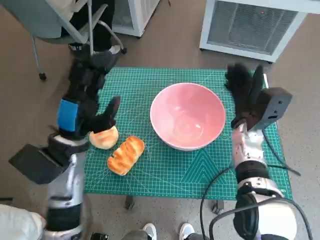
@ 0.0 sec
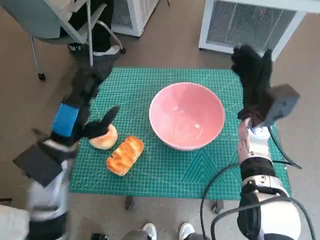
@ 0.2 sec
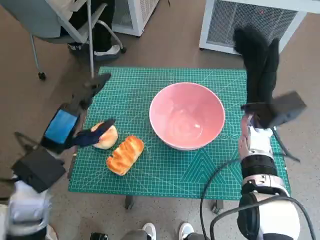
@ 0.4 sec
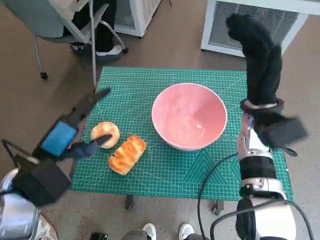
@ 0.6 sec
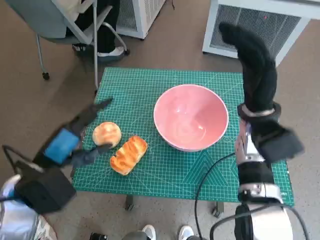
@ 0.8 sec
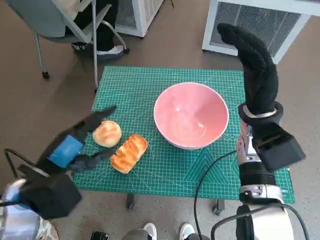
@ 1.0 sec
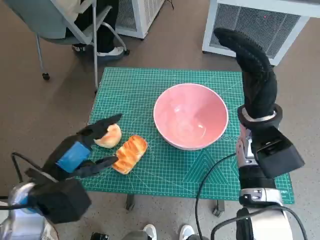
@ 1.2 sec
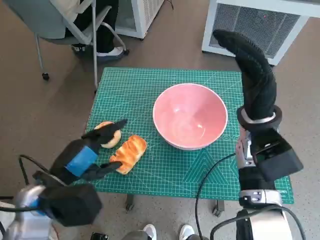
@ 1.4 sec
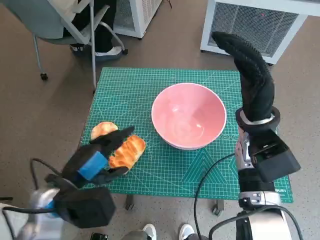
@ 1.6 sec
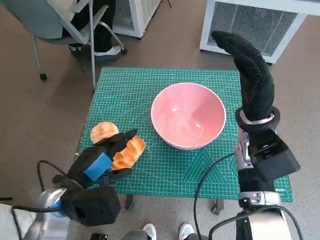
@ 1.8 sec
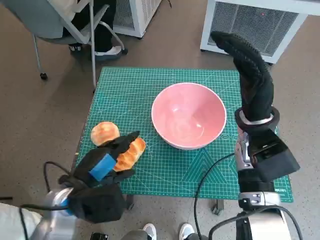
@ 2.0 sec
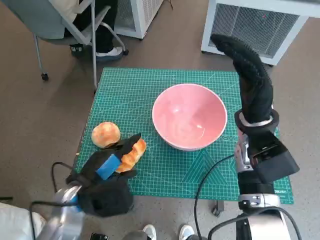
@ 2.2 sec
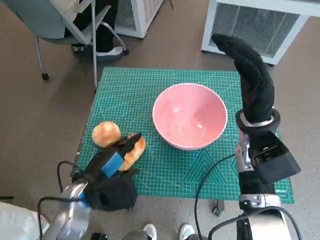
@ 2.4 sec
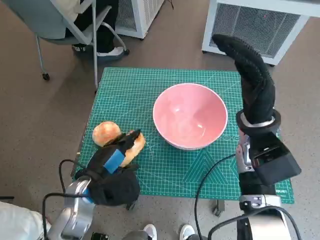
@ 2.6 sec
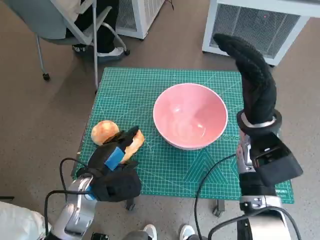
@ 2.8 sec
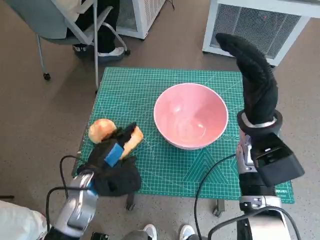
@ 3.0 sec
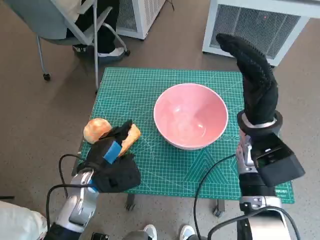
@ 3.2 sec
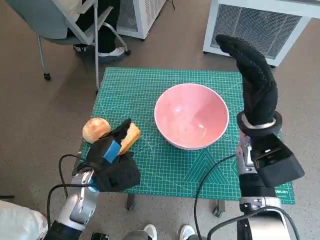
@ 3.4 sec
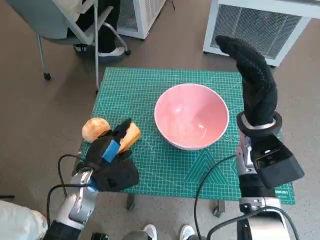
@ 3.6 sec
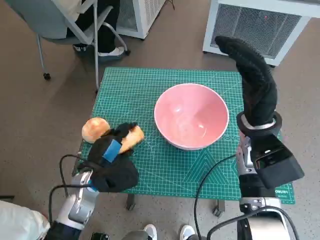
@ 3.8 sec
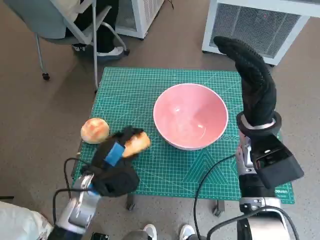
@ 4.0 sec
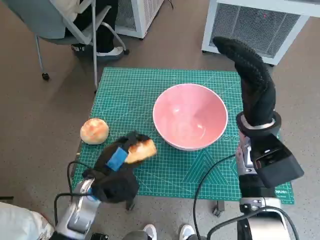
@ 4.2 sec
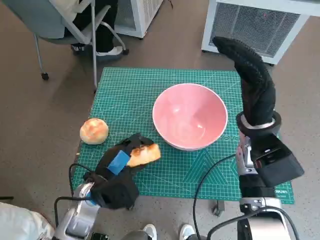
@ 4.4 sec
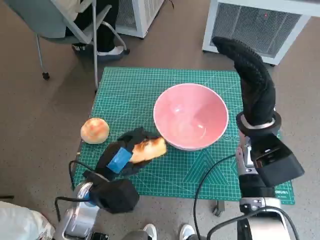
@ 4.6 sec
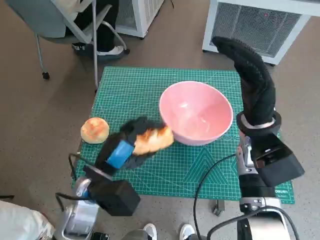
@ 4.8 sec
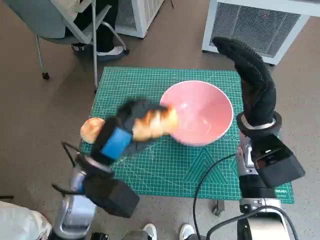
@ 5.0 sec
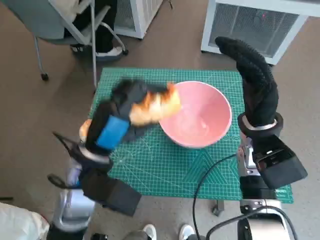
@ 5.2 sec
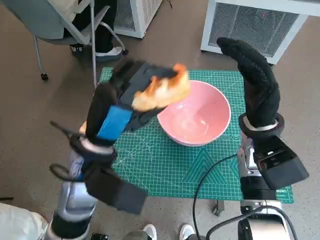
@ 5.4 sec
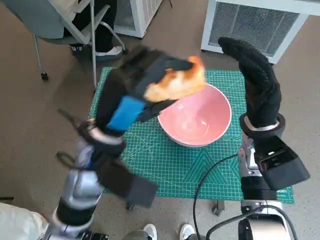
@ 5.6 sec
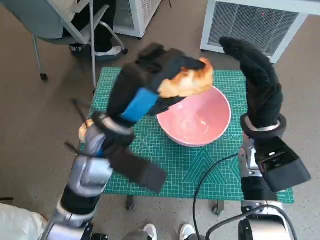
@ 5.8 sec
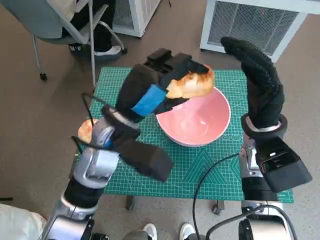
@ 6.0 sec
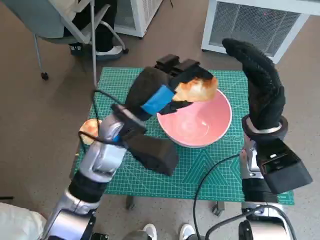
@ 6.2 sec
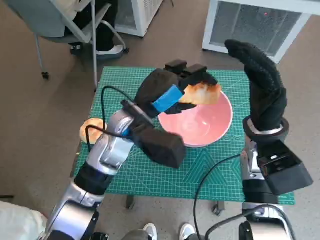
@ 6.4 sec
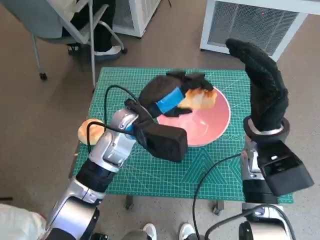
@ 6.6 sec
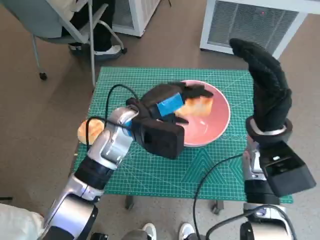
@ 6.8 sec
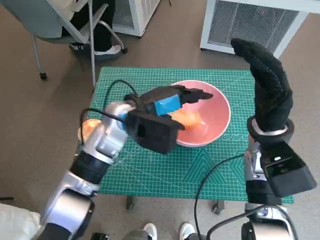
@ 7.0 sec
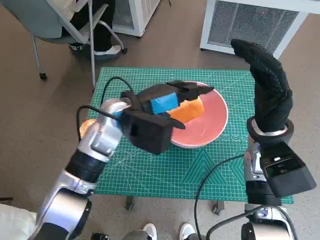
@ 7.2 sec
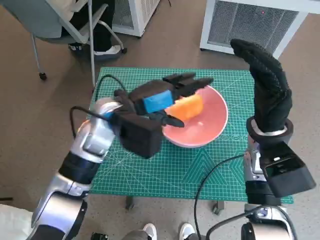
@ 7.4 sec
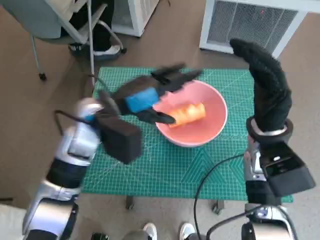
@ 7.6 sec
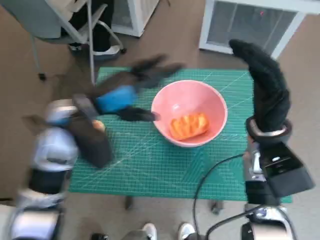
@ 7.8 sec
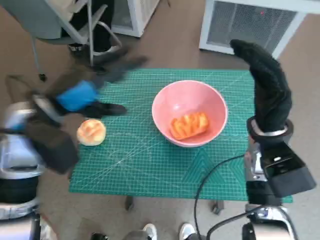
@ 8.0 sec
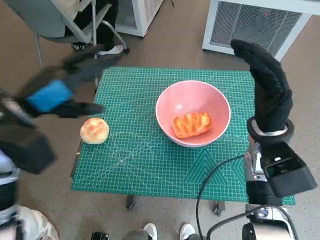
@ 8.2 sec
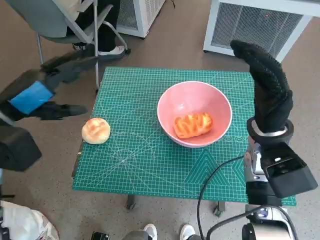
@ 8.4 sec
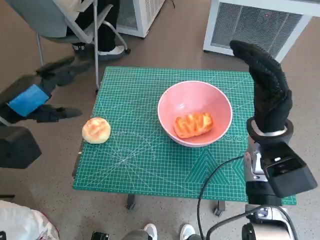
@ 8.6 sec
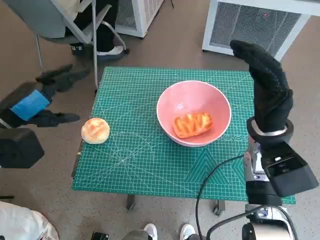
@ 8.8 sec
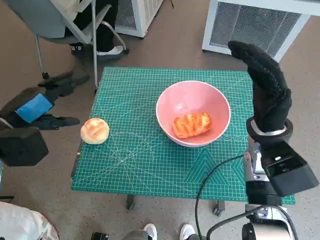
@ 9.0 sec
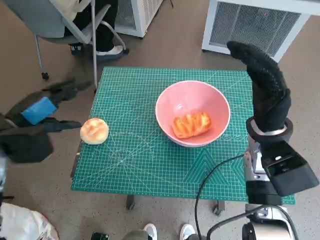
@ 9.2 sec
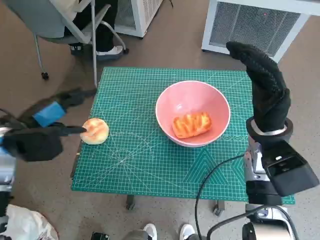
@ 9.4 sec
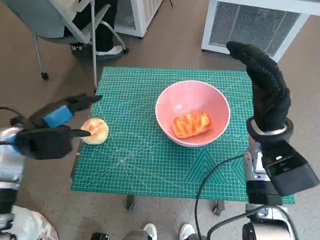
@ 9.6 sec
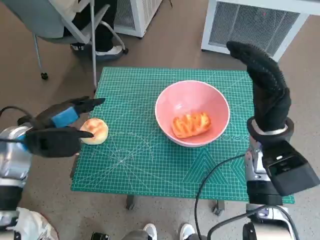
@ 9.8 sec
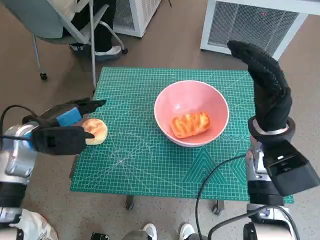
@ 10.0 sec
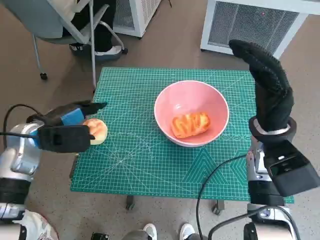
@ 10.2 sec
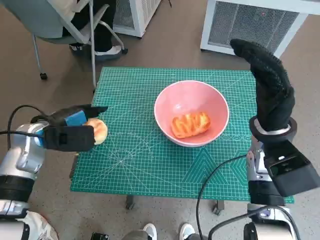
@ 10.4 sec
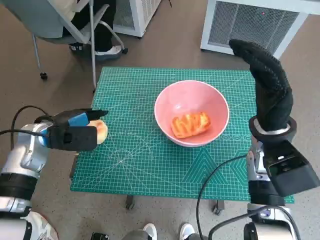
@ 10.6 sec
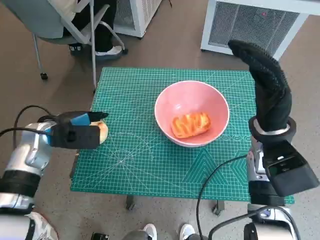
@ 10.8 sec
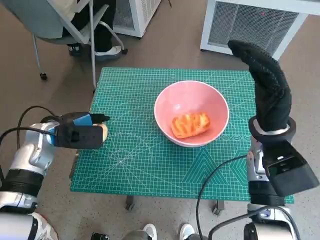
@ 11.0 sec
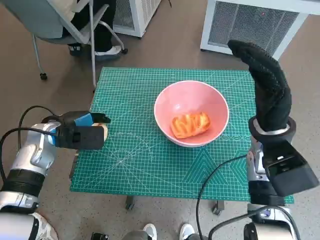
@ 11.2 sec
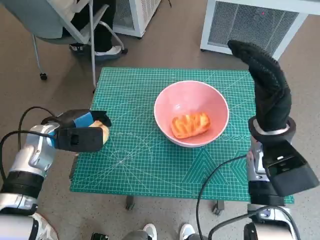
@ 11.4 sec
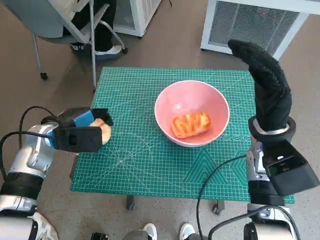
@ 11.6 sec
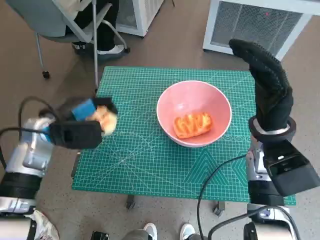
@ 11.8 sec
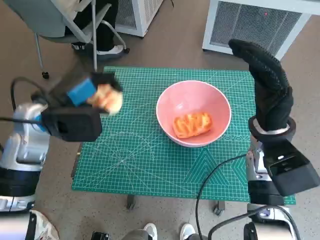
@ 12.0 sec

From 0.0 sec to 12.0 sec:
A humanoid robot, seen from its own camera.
Task of the whole recording: Push the bowl to the center of the table and put the bread into the bowl.
Step, from 0.2 sec to 3.8 sec: Grasp the long bread with left hand.
Step, from 4.2 sec to 7.6 sec: Place the long bread in pink bowl with left hand.
Step, from 7.8 sec to 11.4 sec: Grasp the round bread with left hand.
From 0.0 sec to 1.6 sec: The left hand travels backward by about 10 cm, while the right hand moves upward, roughly 10 cm.
From 1.6 sec to 3.0 sec: The left hand heads downward, covering roughly 10 cm.
From 3.0 sec to 4.4 sec: The hands stay close to where they were, moving slightly.
From 4.4 sec to 6.0 sec: The left hand is displaced upward, to the right and forward by about 15 cm.
From 7.6 sec to 9.0 sec: The left hand goes roughly 15 cm to the left.
From 9.0 sec to 10.4 sec: The left hand moves downward, about 5 cm.
From 10.4 sec to 12.0 sec: The left hand ends up about 5 cm from where it was.

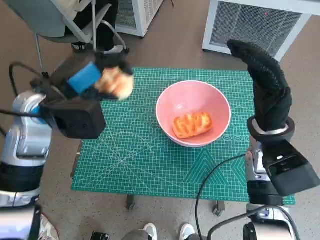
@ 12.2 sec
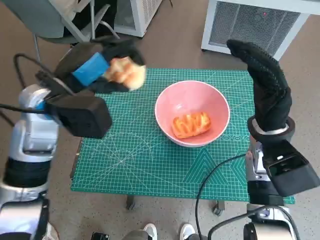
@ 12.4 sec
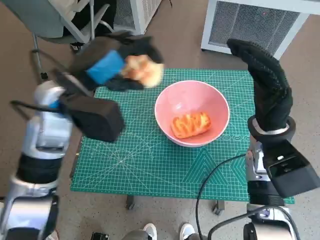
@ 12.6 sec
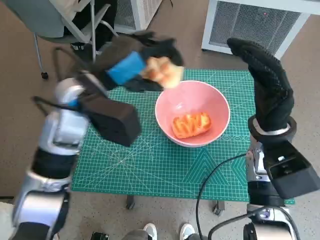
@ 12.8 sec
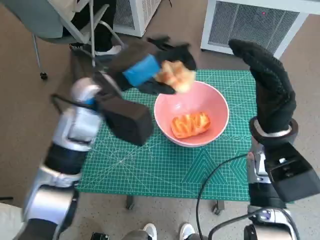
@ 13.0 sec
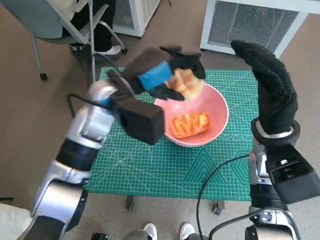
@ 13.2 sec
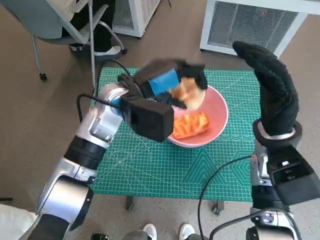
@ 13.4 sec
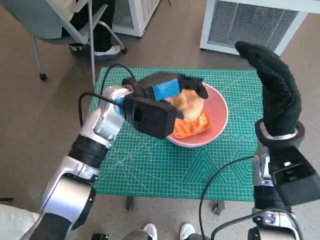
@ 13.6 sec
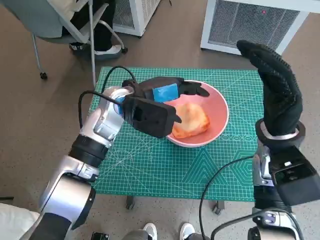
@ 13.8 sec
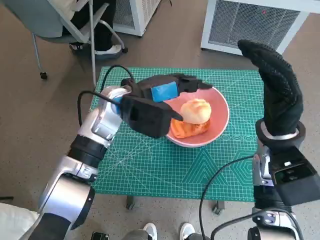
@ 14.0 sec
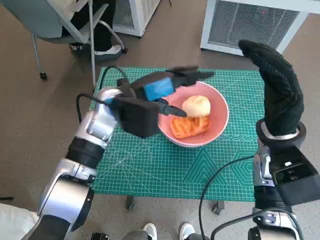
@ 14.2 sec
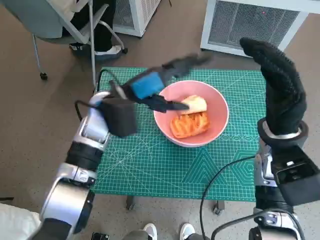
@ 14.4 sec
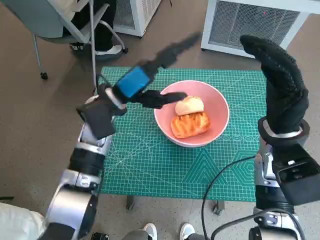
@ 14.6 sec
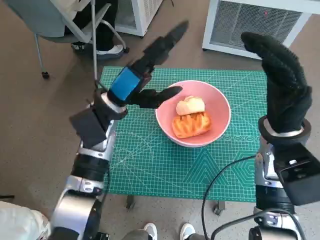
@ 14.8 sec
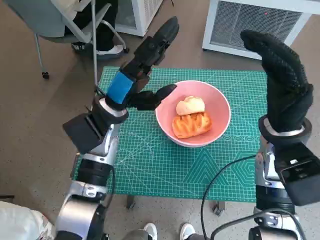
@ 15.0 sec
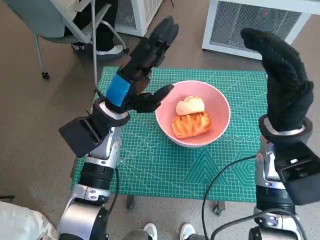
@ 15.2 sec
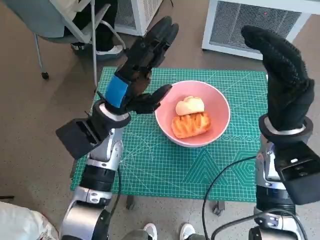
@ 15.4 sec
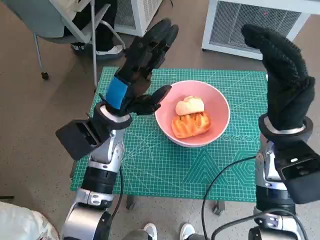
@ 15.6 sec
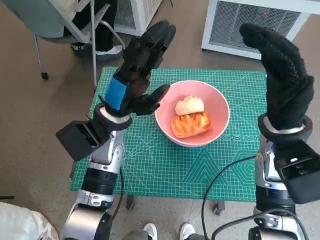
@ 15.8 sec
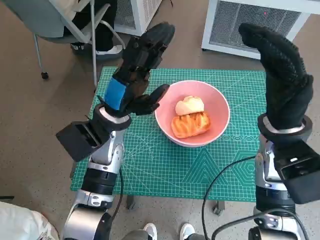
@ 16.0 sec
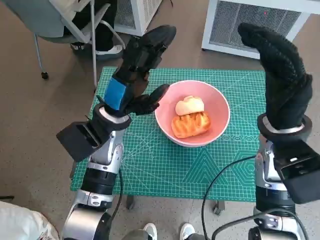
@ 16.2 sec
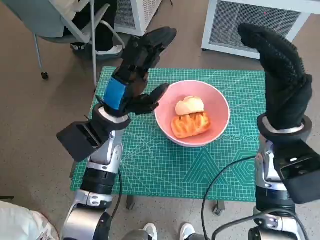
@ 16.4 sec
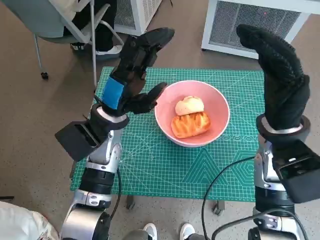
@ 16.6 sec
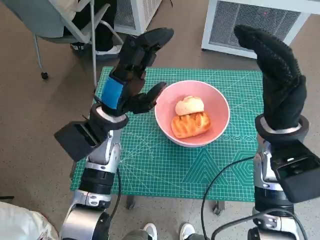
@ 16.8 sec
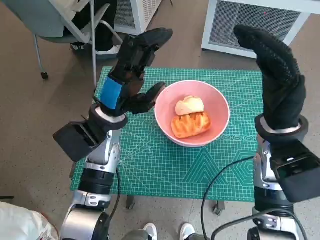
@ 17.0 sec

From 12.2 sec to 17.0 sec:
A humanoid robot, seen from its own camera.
Task of the whole recording: Push the bowl to the center of the table and put the bread into the bowl.
Step, from 12.2 sec to 14.6 sec: Place the round bread in pink bowl with left hand.
From 12.2 sec to 13.8 sec: The left hand heads to the right, covering about 10 cm.
From 13.8 sec to 15.4 sec: The left hand changes place by roughly 5 cm.
From 15.4 sec to 17.0 sec: Both hands stay about where they are.
